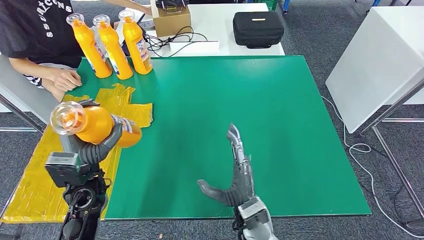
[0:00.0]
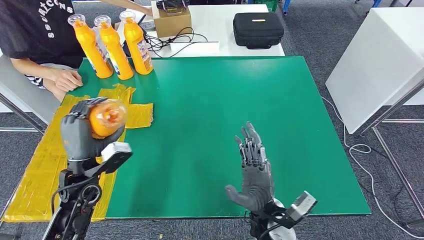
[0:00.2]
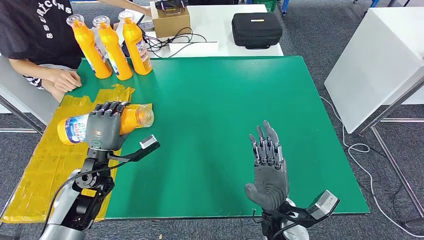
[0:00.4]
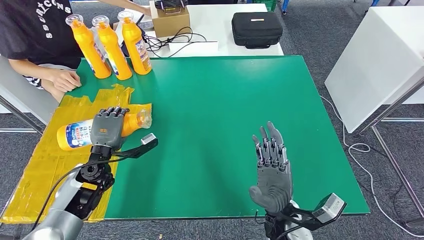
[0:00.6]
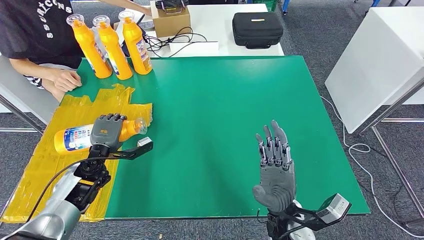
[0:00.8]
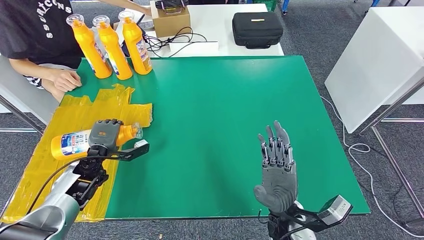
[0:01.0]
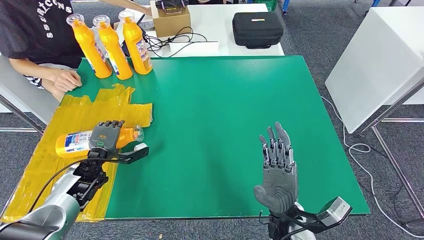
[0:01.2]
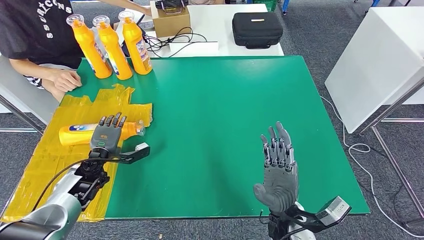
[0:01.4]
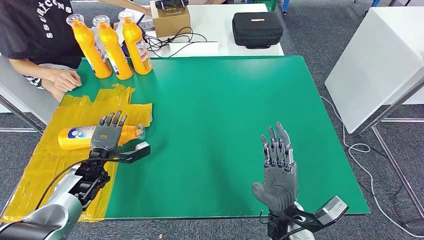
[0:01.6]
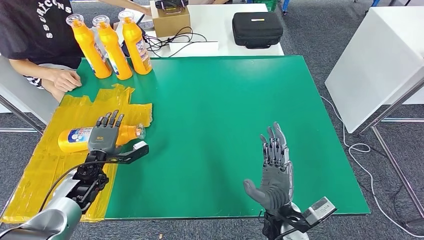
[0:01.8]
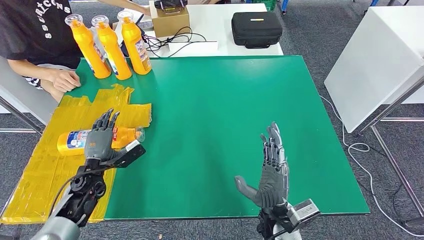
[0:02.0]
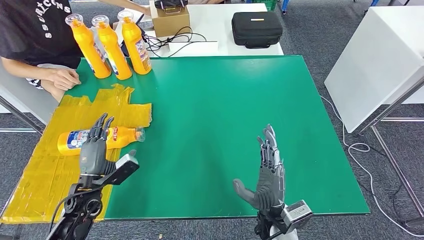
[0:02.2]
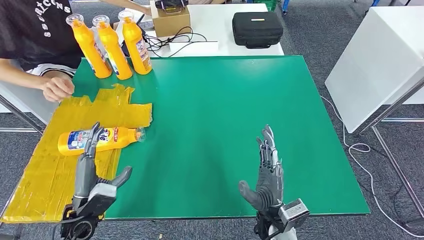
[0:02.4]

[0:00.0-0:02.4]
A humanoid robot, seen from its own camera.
Step, 0:00.0 to 0:02.2: Flip the fast-moving consumer goods bottle to the front side.
0:00.0 to 0:01.2: The left hand is displaced downward, forward and to the left by some 15 cm. The right hand moves to the right, about 10 cm.
0:01.2 to 0:02.4: The left hand goes about 15 cm backward.
